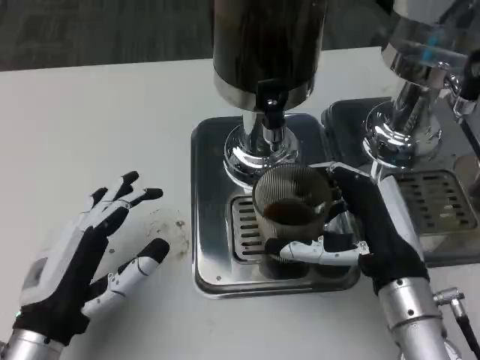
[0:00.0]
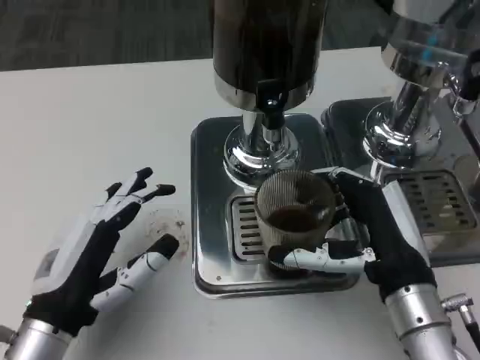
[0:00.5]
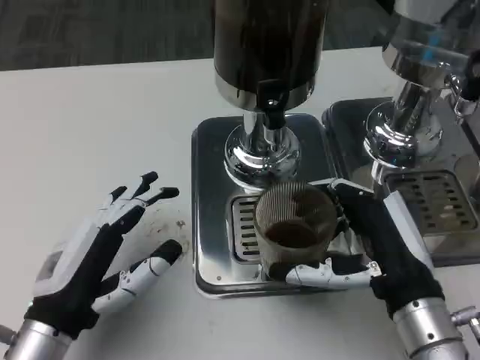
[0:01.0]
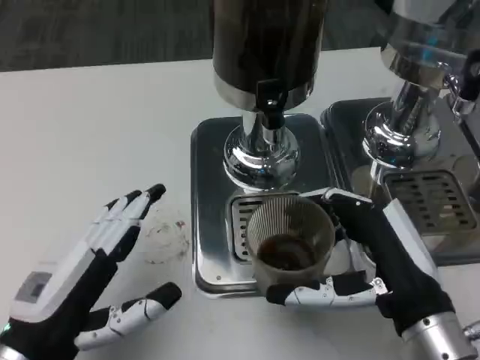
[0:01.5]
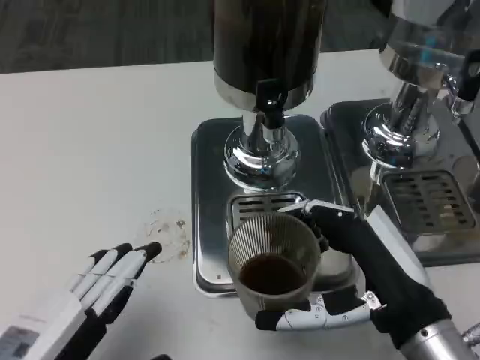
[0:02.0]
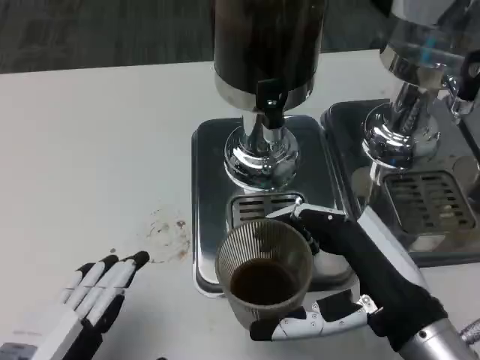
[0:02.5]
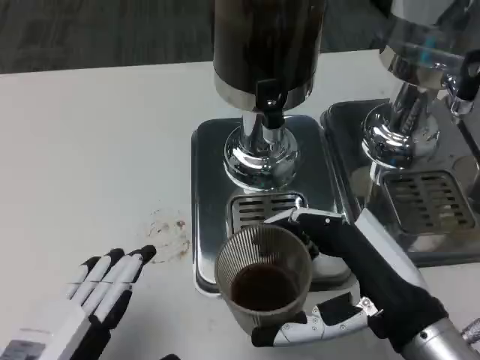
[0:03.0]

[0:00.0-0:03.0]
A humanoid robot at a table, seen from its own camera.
Task of the whole recording: Grasp the cup under the faucet to collect the drink, then remove the cup.
0:00.0 to 0:01.5: The right hand ends up roughly 5 cm from where it was.
0:01.5 to 0:03.0: The left hand is displaced backward by approximately 5 cm.

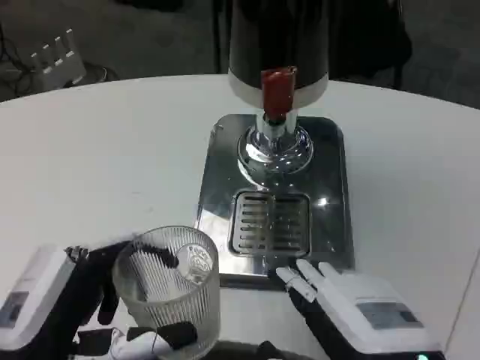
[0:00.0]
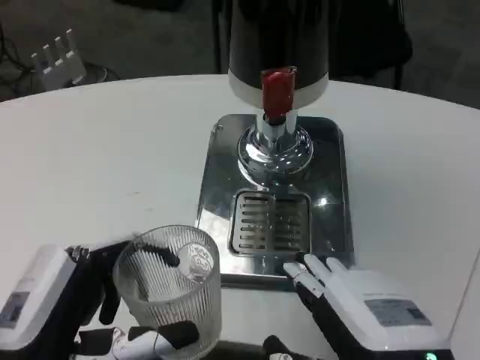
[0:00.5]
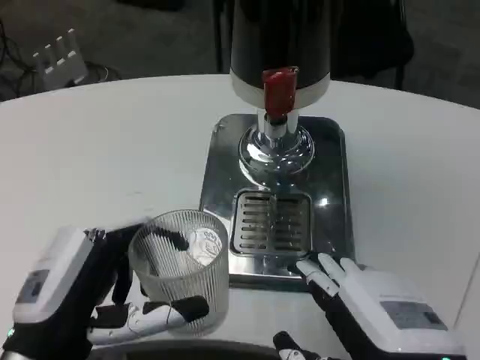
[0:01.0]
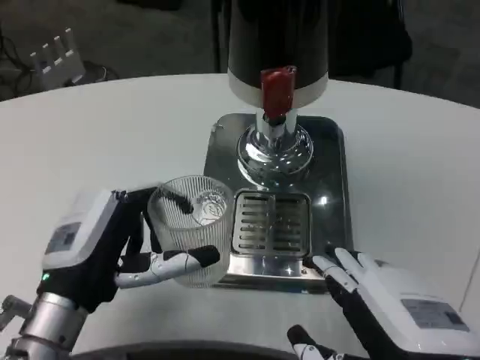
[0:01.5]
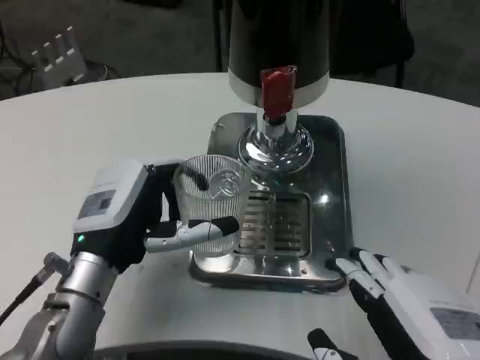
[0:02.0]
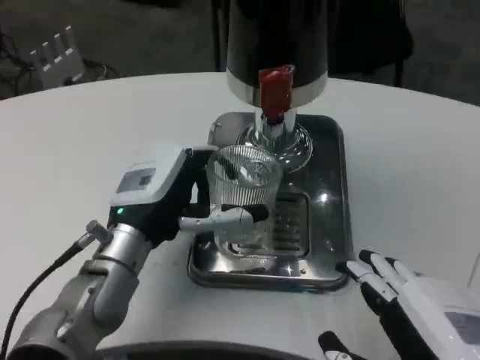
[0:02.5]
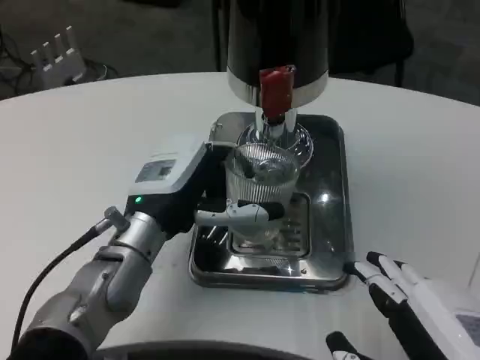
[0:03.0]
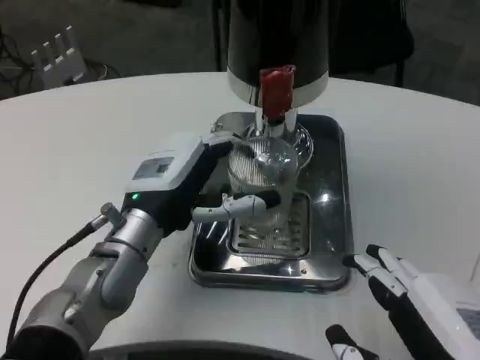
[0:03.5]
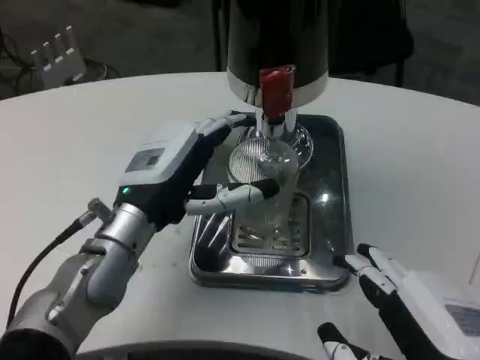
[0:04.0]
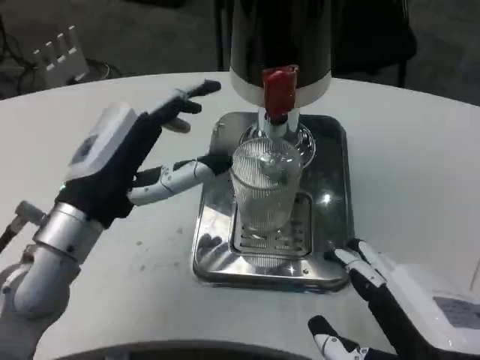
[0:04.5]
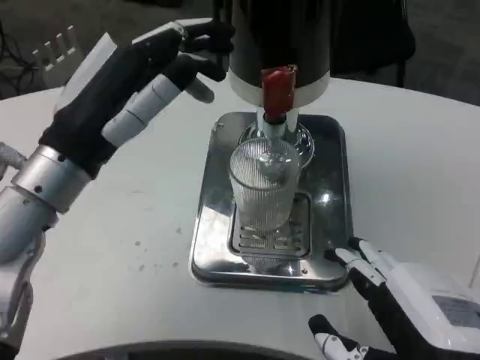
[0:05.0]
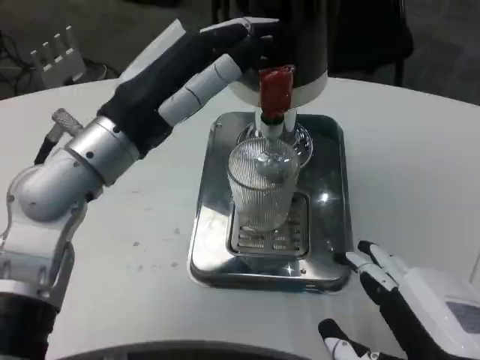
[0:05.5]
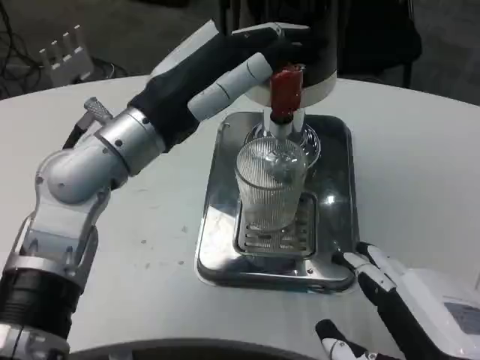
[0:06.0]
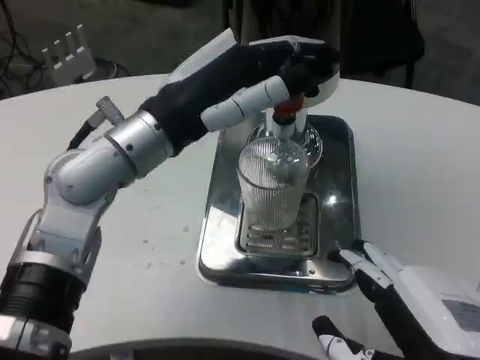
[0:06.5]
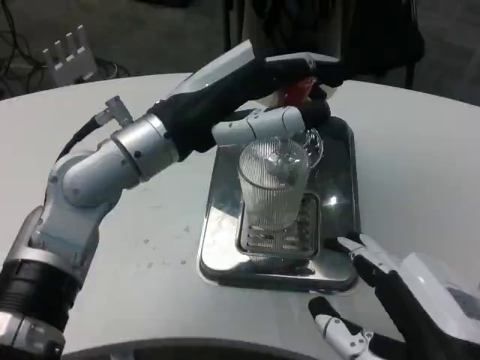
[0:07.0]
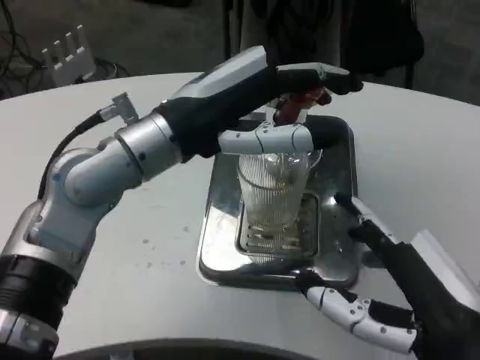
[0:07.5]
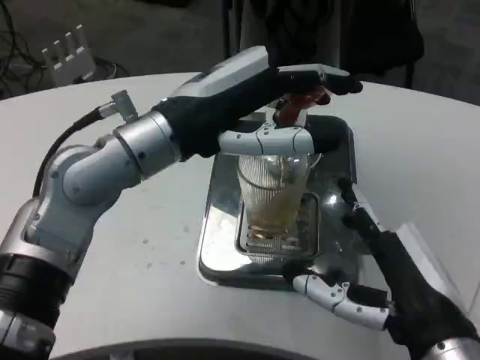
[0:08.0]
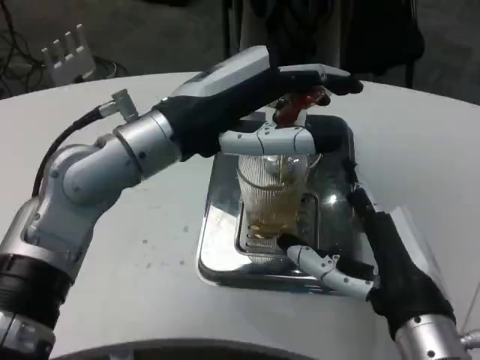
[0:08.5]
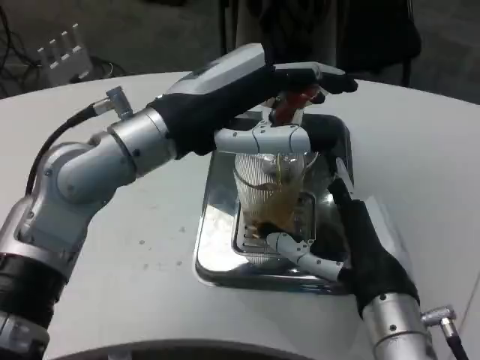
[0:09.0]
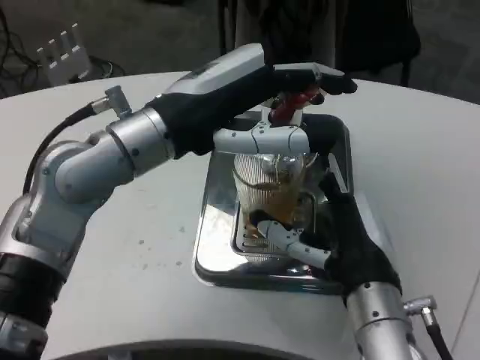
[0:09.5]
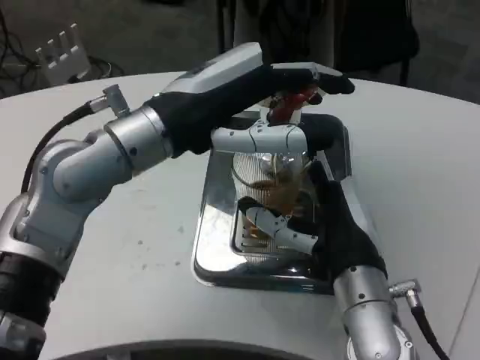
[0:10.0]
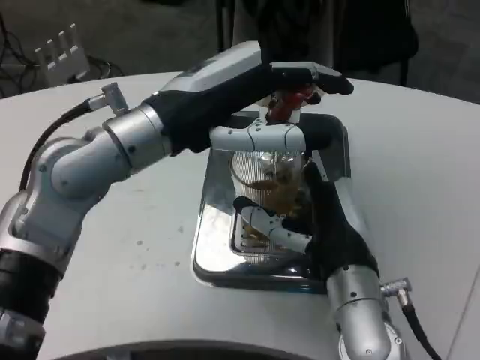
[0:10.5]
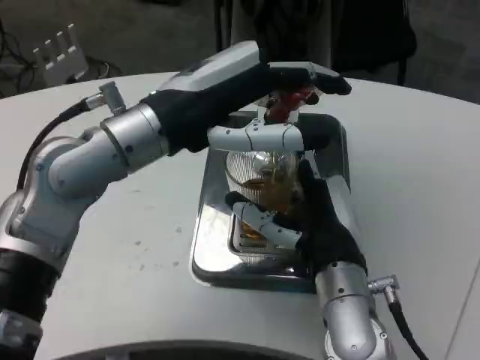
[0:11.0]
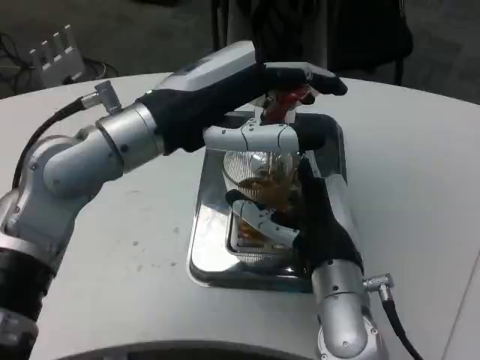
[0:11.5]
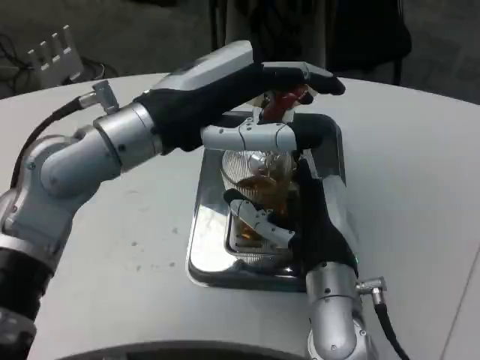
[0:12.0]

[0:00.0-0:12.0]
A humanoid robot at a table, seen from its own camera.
Task of the whole recording: Grasp the cup under the faucet to collect the drink, then remove the cup.
0:00.0 to 0:02.0: The left hand goes some 15 cm forward.
0:02.0 to 0:04.0: The left hand ends up some 5 cm from where it was.
0:04.0 to 0:06.0: The left hand travels upward by some 10 cm.
0:06.0 to 0:08.0: The right hand shifts some 5 cm forward.
0:08.0 to 0:10.0: The right hand heads forward and to the left, covering approximately 10 cm.

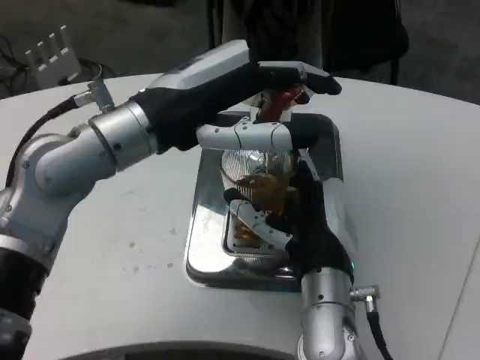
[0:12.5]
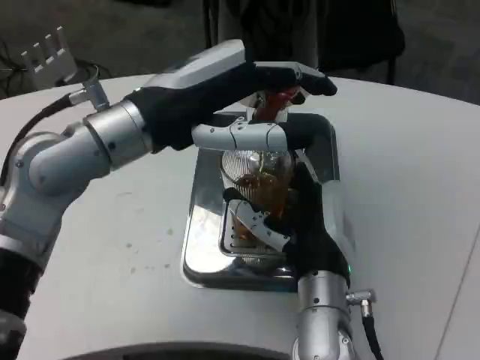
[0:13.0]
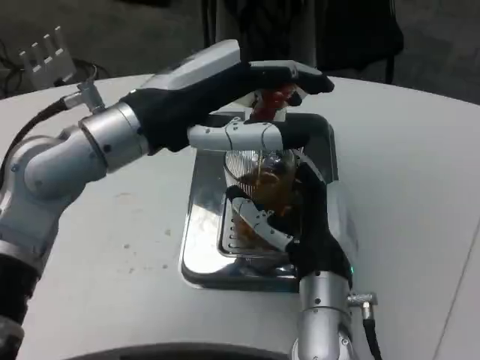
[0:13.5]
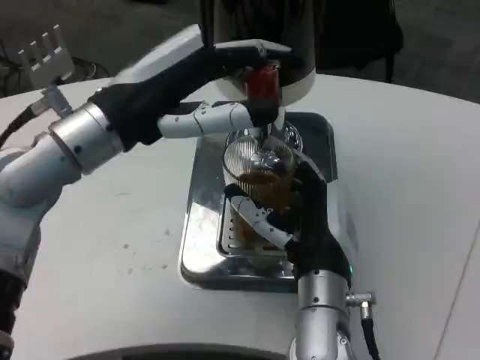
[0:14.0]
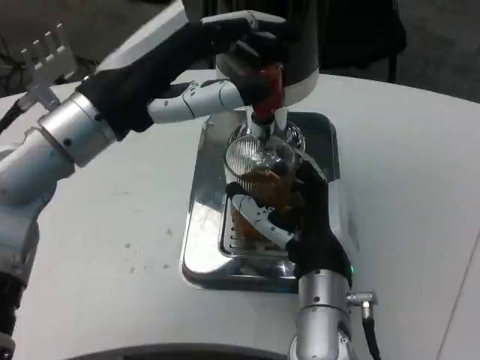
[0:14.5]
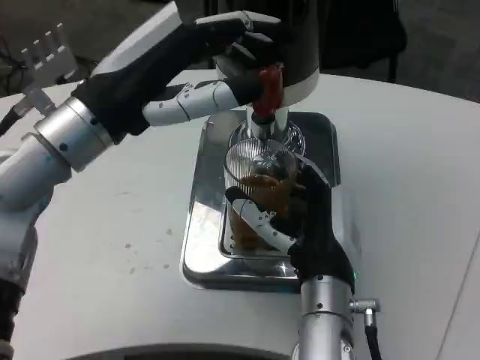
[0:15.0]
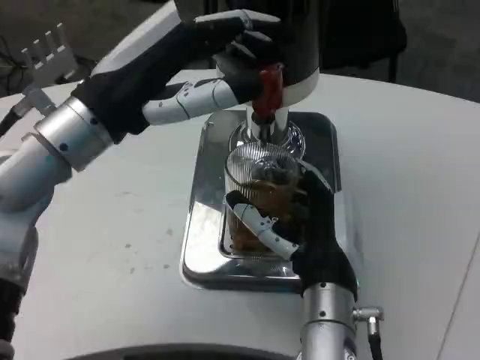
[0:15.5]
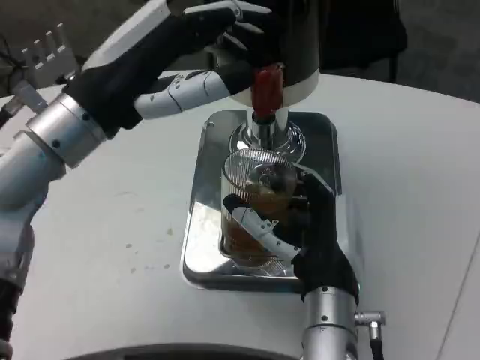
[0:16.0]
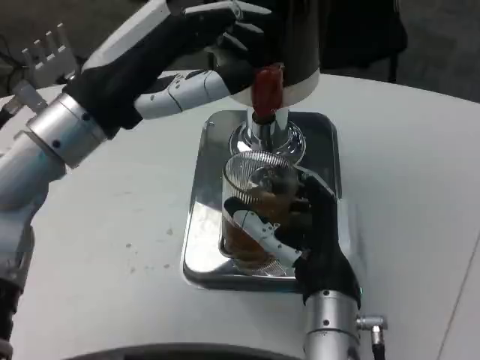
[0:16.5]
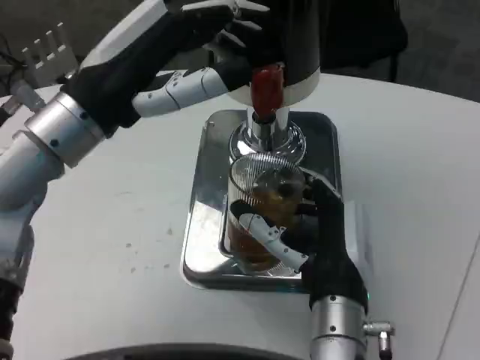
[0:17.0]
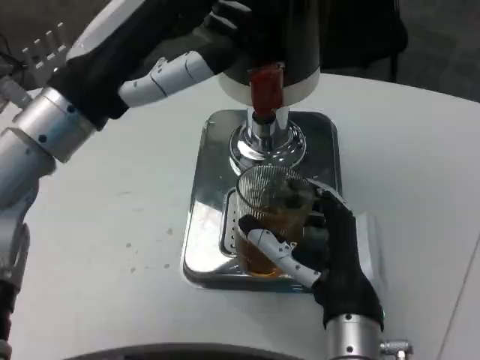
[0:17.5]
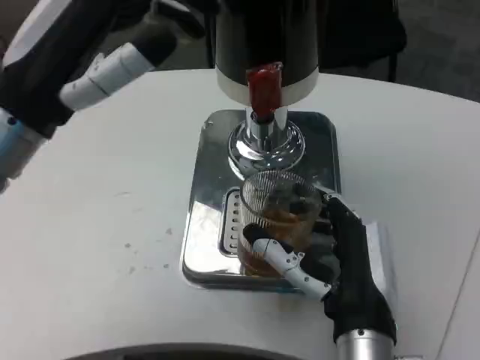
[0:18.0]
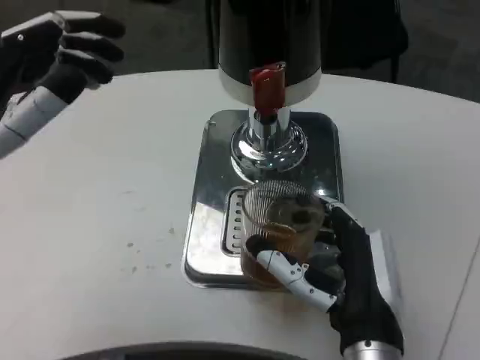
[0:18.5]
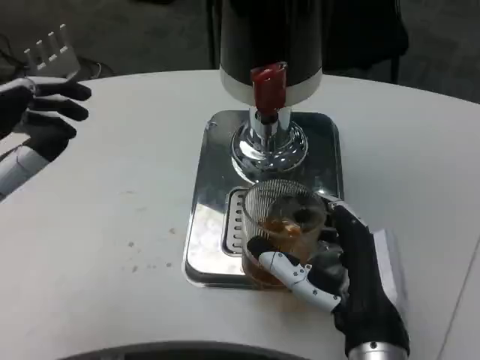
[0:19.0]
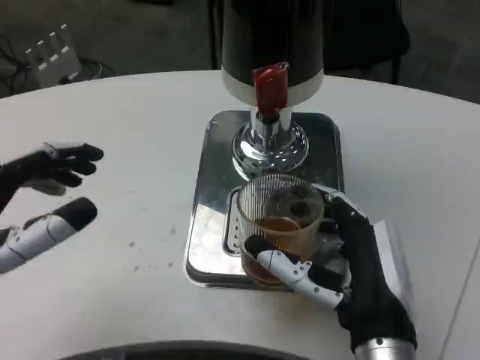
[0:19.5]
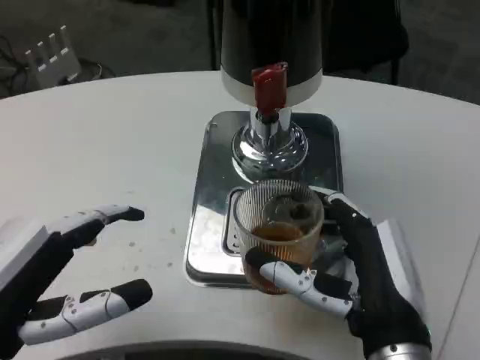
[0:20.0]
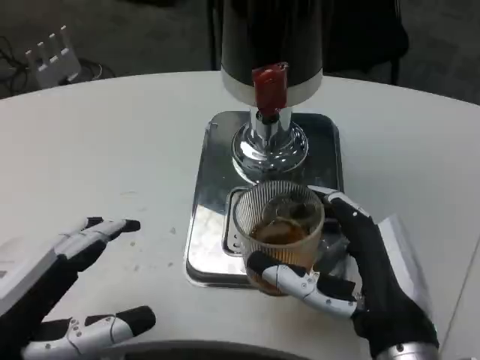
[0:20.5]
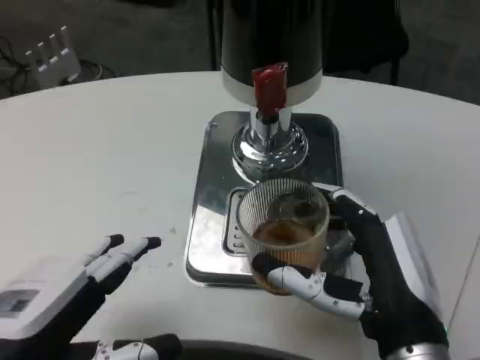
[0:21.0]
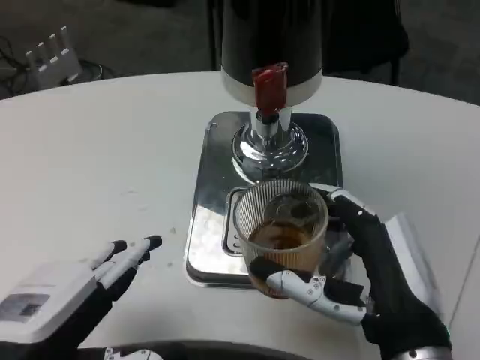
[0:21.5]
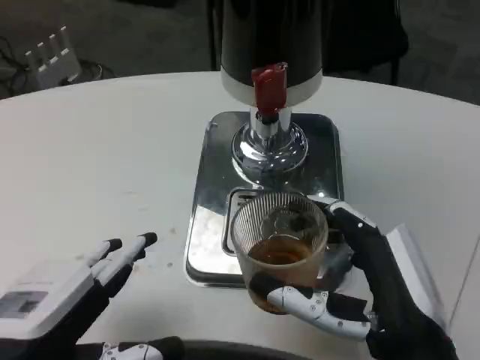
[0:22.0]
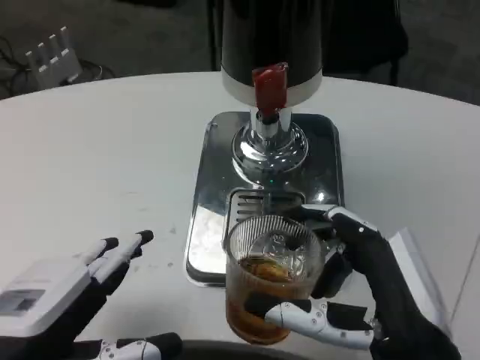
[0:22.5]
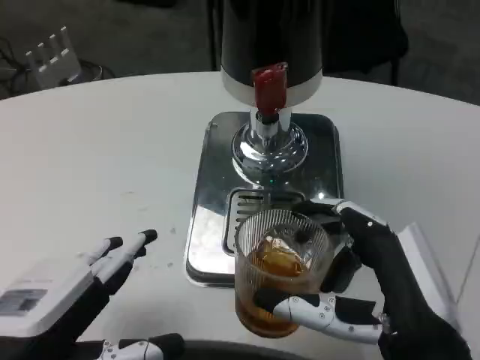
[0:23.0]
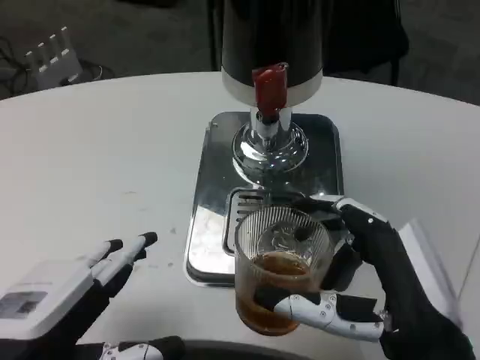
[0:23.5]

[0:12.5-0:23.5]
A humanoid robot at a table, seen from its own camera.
Task of the whole recording: Grasp the cup under the faucet to collect the drink, then remove the cup.
0:14.5 to 0:16.0: There are only small adjustments of the hands.
0:16.0 to 0:18.0: The right hand changes place by roughly 5 cm.
0:18.0 to 0:20.0: The left hand heads backward and downward, covering some 15 cm.
0:20.0 to 0:23.5: There are only small adjustments of the hands.
